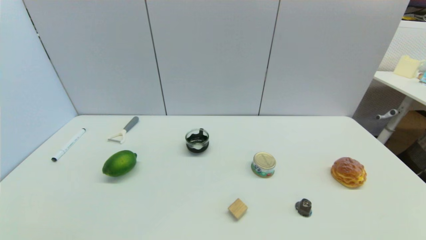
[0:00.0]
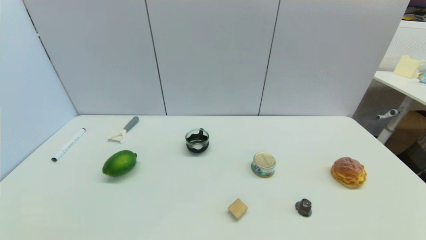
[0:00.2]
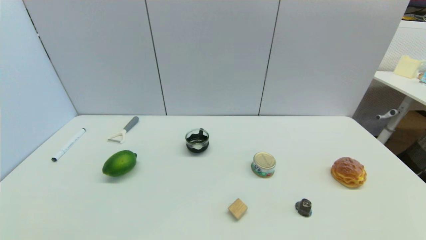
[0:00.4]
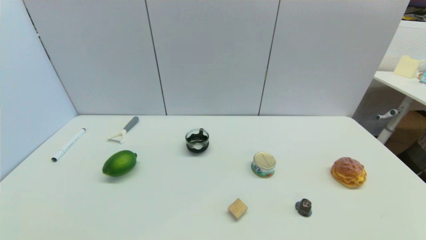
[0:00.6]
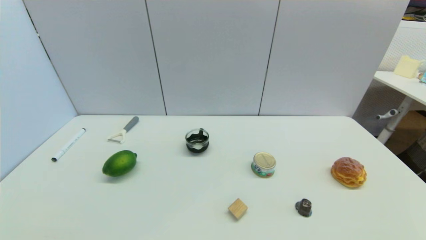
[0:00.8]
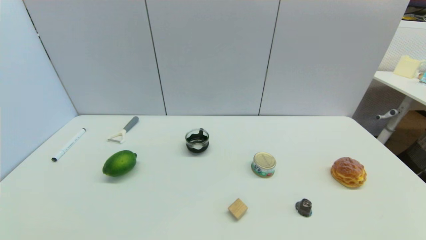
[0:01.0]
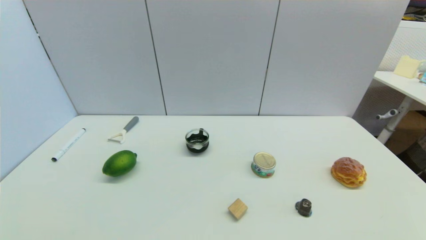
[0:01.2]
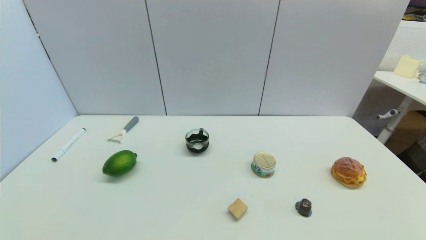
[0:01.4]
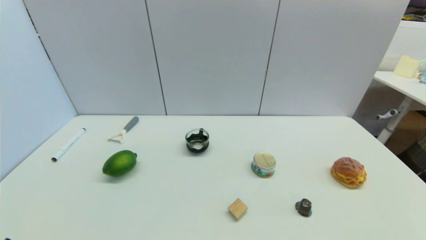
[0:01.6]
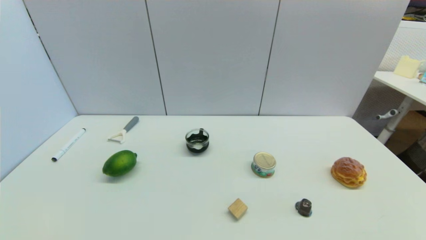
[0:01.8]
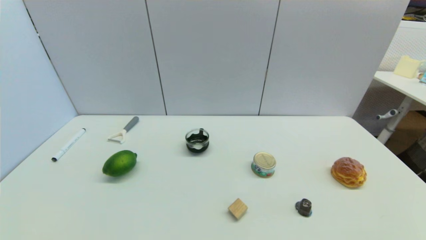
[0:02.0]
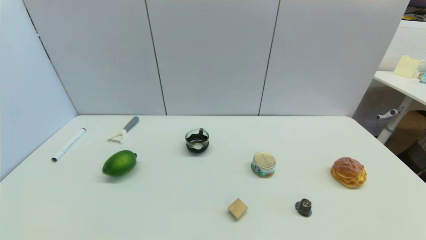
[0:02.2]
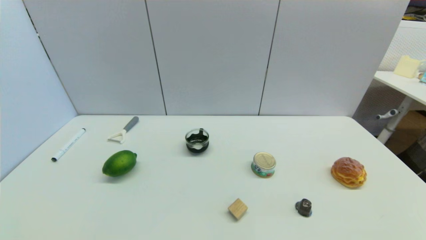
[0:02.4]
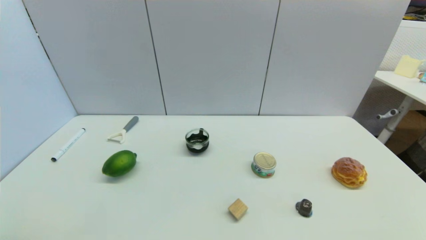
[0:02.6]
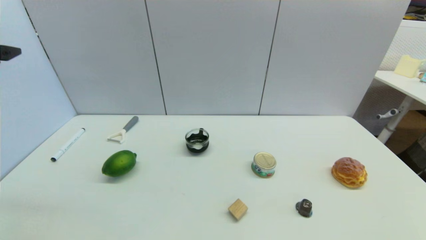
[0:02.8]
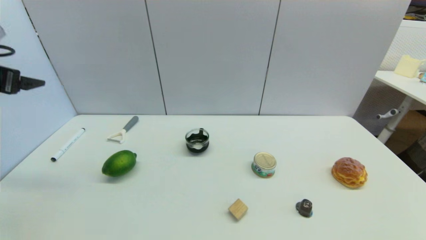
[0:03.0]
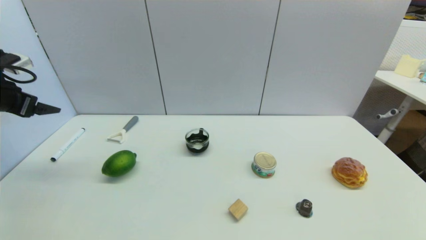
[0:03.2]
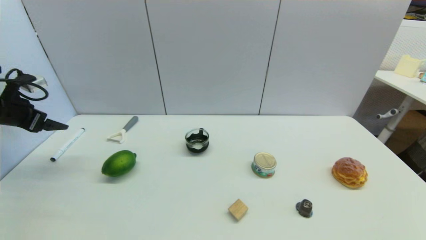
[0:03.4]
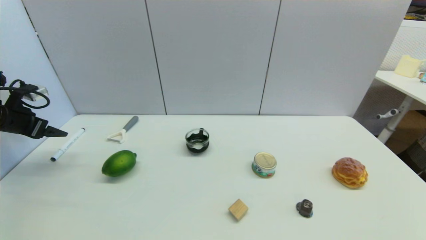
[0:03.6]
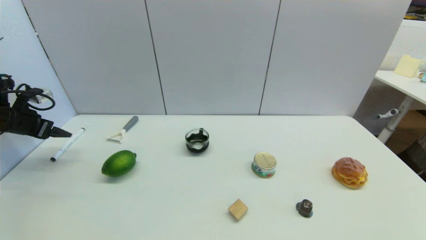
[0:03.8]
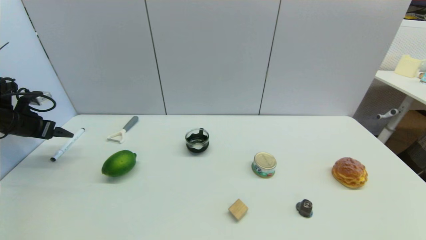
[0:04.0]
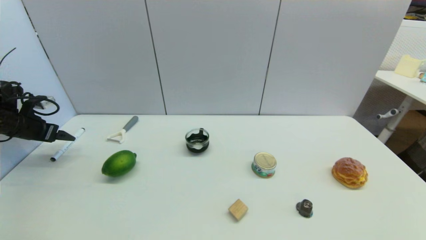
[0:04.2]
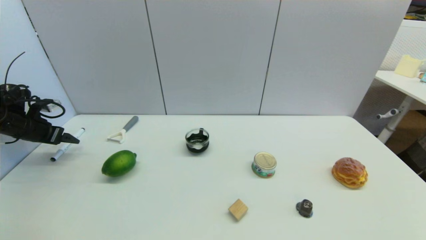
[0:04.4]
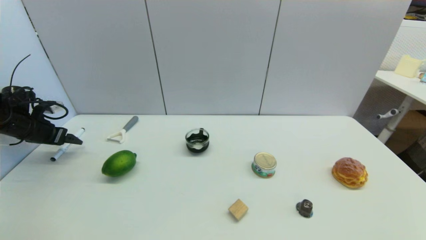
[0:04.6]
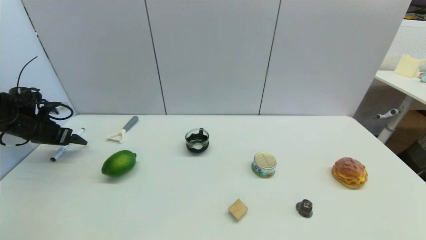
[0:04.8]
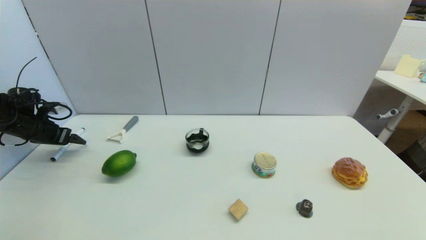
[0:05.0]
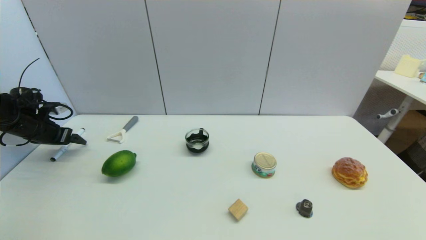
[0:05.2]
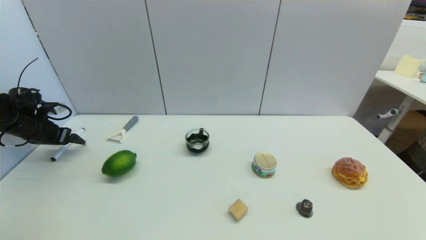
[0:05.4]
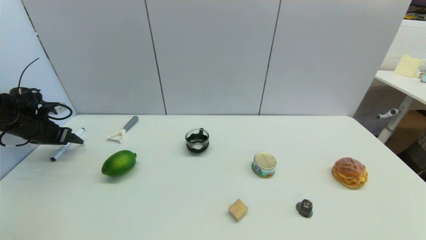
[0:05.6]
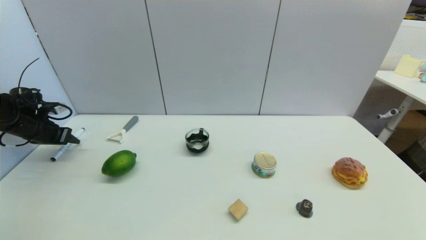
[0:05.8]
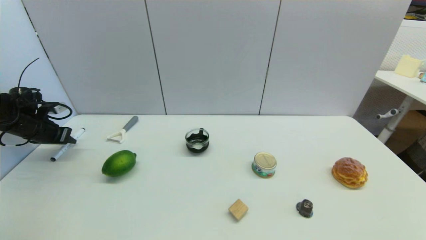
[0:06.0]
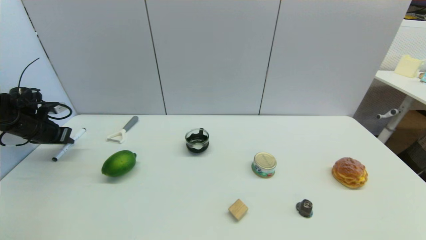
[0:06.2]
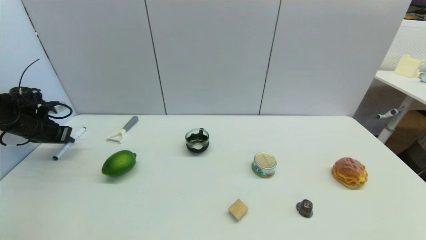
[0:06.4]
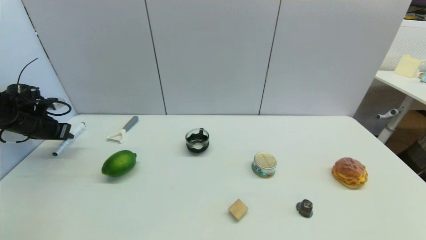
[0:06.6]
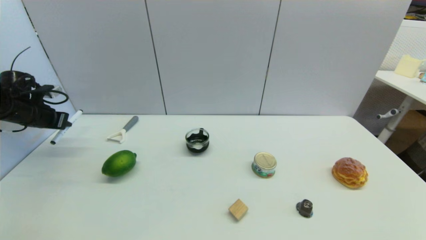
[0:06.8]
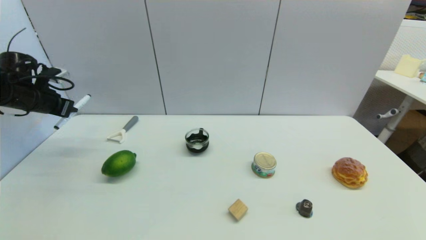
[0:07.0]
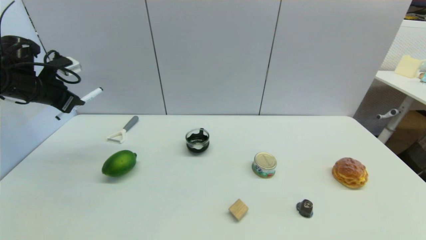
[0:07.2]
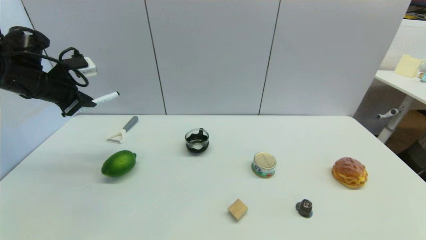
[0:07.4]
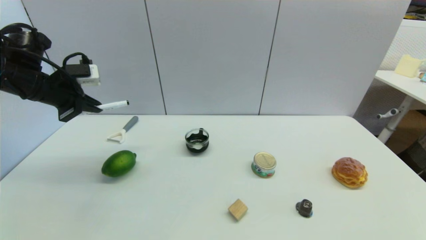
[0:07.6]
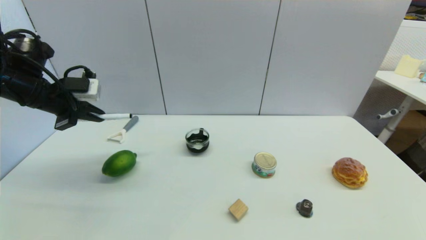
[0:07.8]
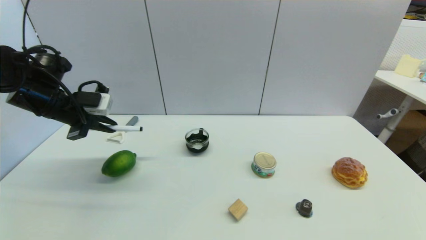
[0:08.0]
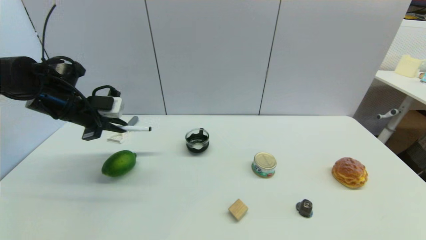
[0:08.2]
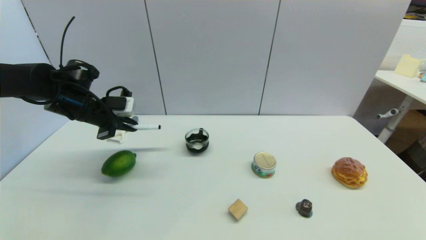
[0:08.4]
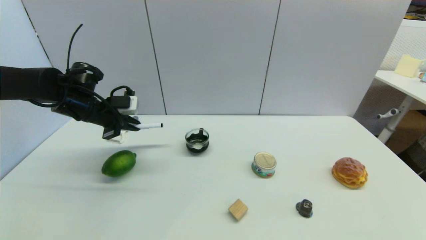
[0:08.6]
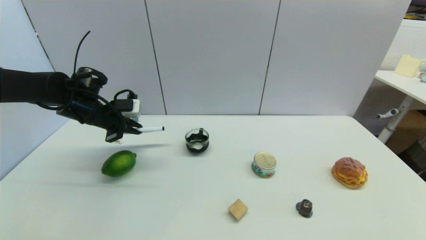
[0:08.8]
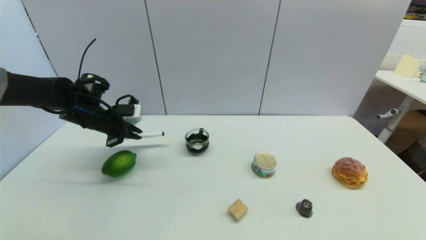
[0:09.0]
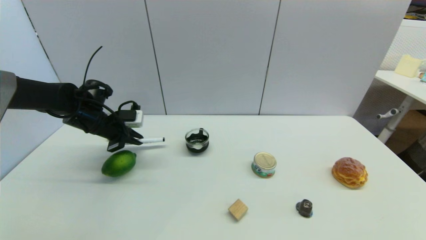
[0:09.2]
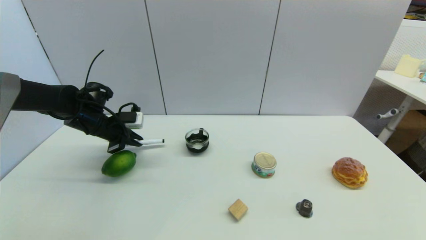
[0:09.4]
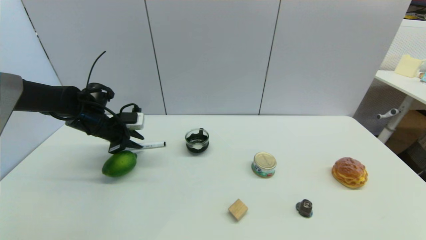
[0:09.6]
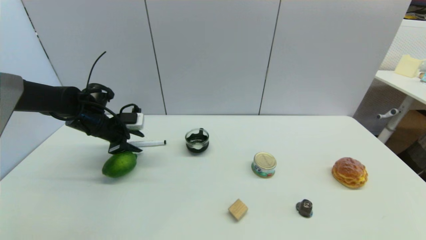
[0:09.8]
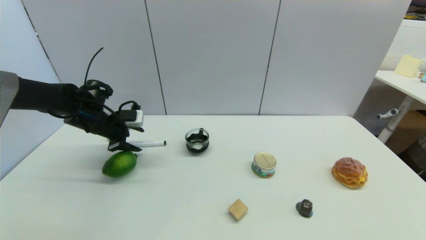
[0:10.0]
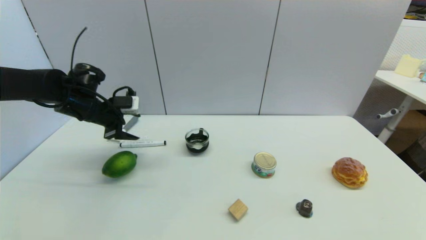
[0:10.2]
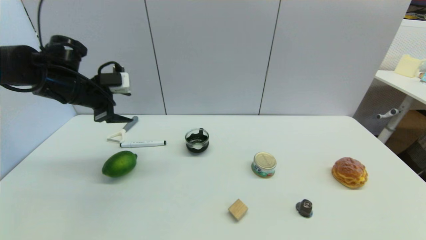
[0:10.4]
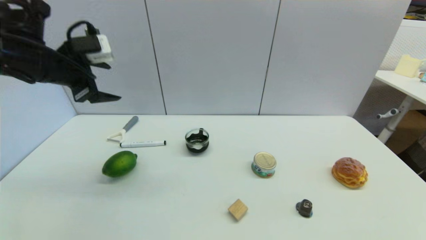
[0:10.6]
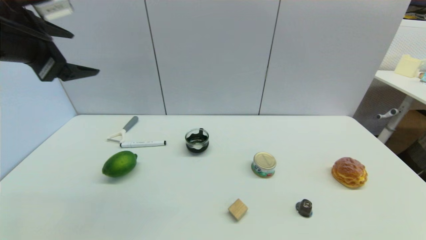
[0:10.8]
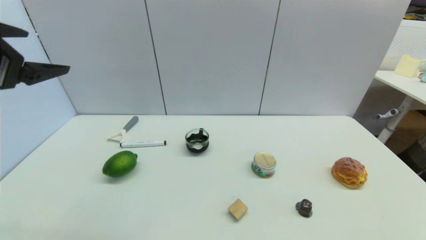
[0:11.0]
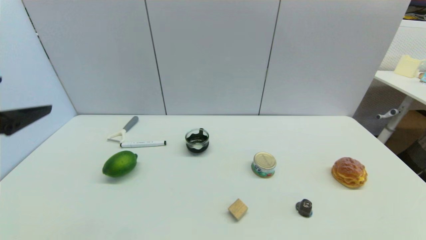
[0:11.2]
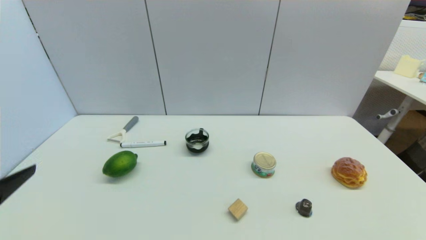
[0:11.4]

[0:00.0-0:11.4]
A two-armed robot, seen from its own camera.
Task of the whole recording: put the black marker in the designated position.
Step, 0:02.8 to 0:06.4: Grasp the Marker pen with left gripper.
Step, 0:06.6 to 0:09.8: Place the Marker pen on the table with left gripper.
0:00.0 to 0:01.4: The two grippers keep their place.
0:02.8 to 0:04.2: The left gripper goes about 25 cm downward, forward and to the left.
0:04.2 to 0:05.6: There are only small adjustments of the grippers.
0:05.6 to 0:07.2: The left gripper moves upward and to the right, some 15 cm, and closes its fingers.
0:07.2 to 0:08.6: The left gripper heads to the right and downward, covering roughly 10 cm.
0:08.6 to 0:10.0: The left gripper opens up.
0:10.0 to 0:11.4: The left gripper heads backward, covering roughly 35 cm.

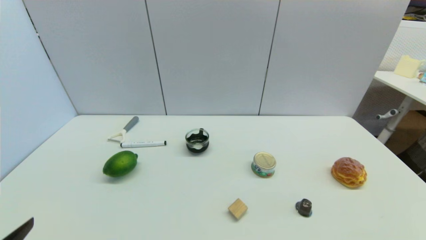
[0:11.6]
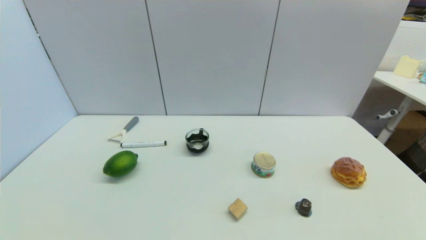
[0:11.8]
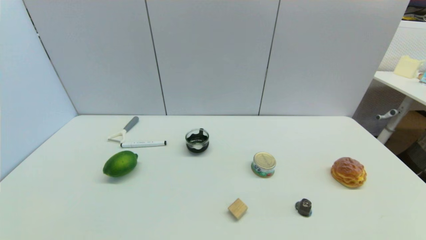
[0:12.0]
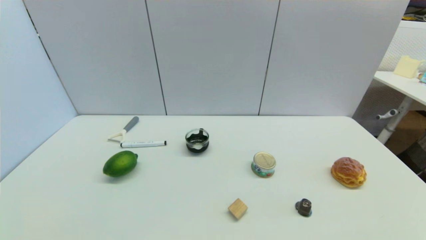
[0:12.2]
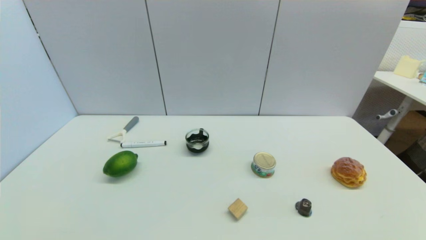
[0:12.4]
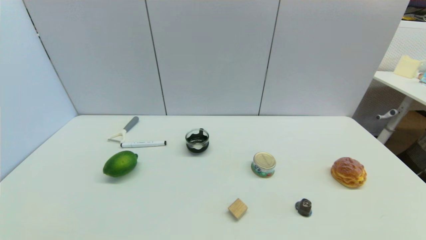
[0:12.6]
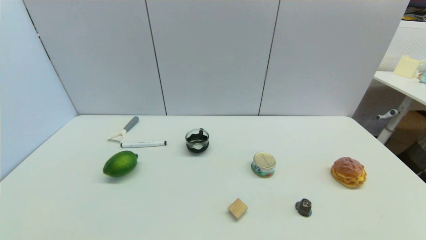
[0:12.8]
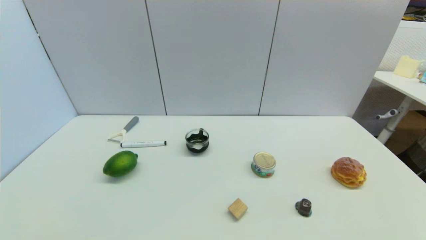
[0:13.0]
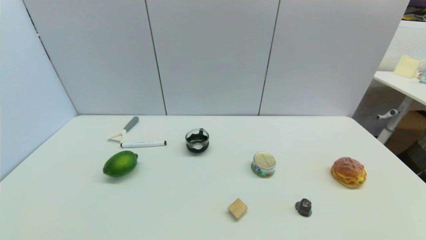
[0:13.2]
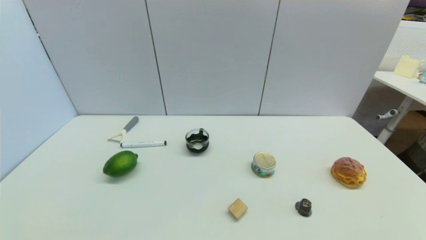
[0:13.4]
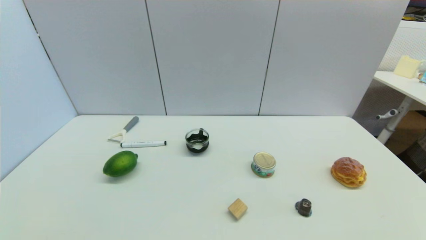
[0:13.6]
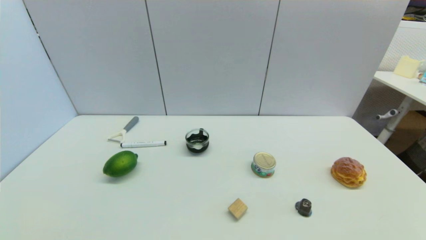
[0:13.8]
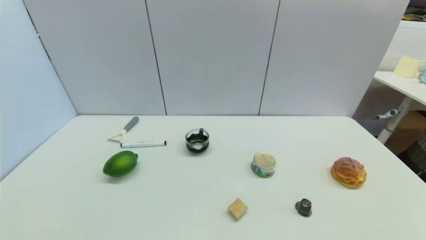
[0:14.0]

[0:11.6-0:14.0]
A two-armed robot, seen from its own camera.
Task of the whole recording: put the black marker in the designated position.
0:12.8 to 0:14.0: Neither gripper changes place.
